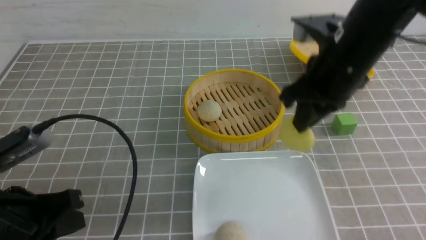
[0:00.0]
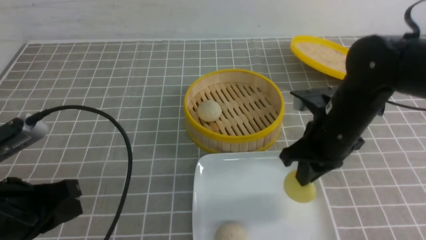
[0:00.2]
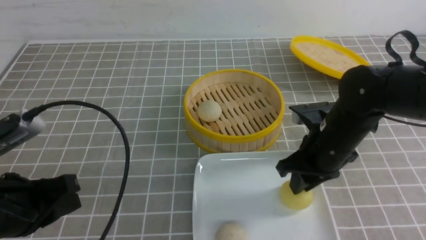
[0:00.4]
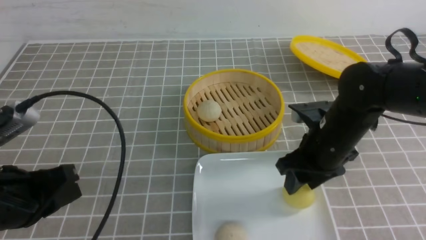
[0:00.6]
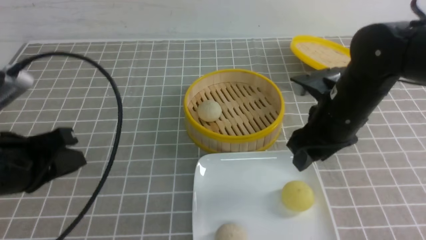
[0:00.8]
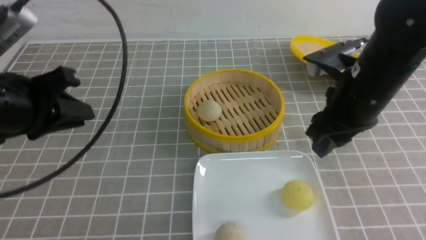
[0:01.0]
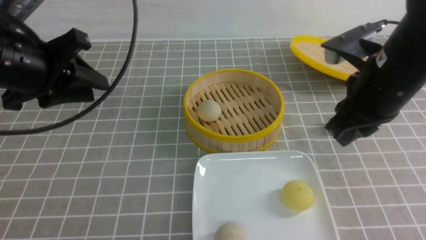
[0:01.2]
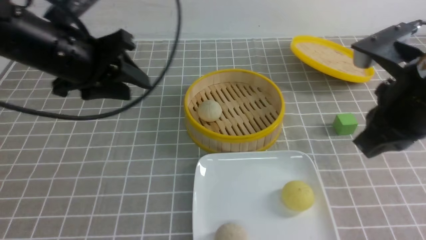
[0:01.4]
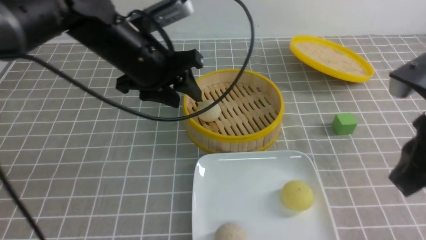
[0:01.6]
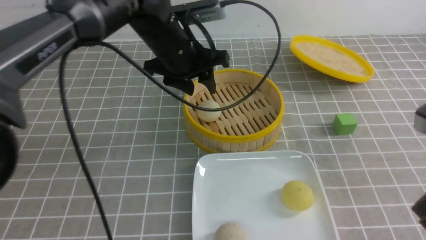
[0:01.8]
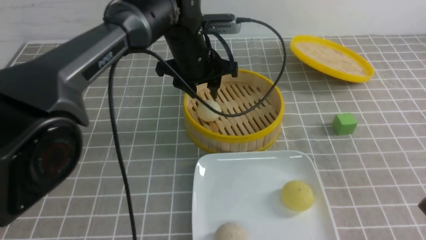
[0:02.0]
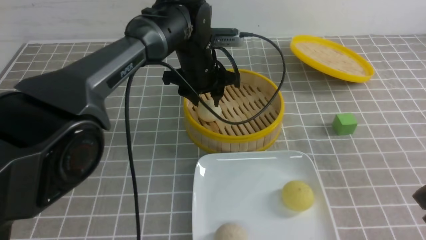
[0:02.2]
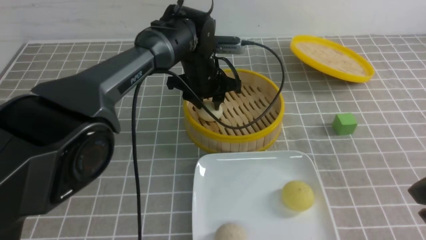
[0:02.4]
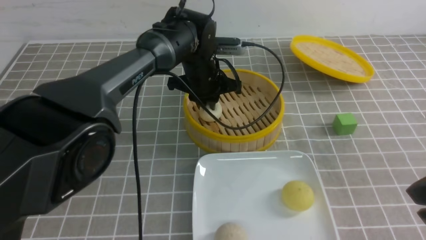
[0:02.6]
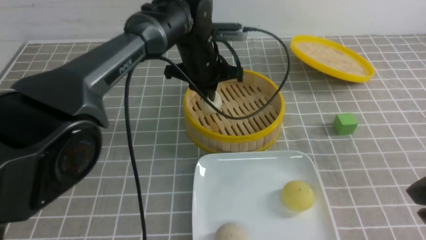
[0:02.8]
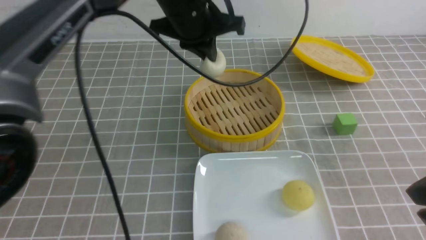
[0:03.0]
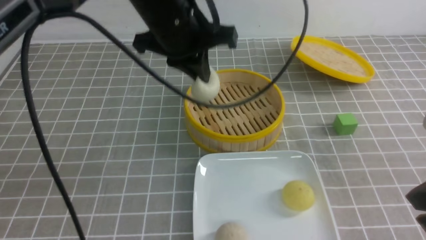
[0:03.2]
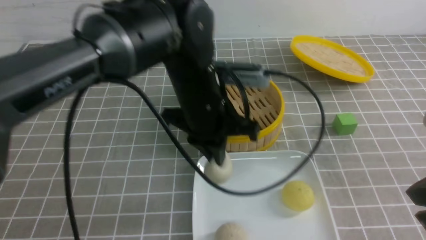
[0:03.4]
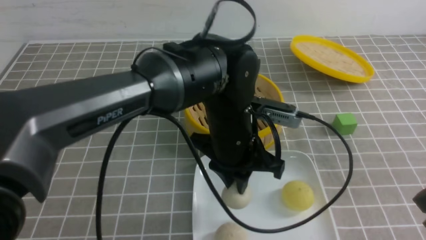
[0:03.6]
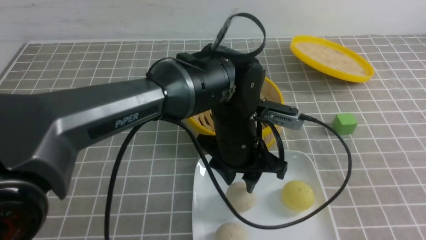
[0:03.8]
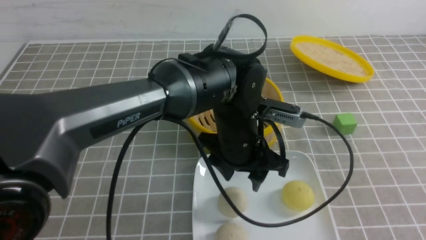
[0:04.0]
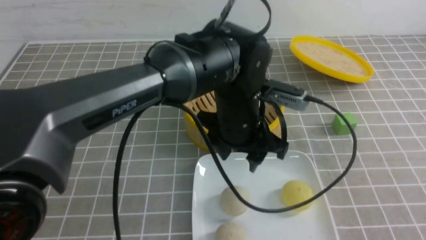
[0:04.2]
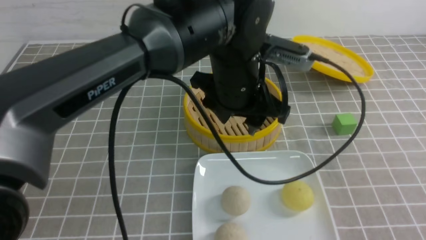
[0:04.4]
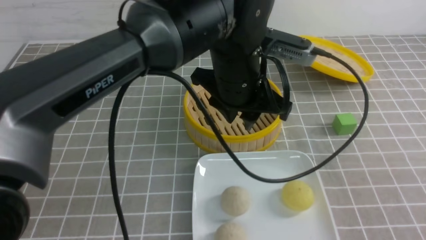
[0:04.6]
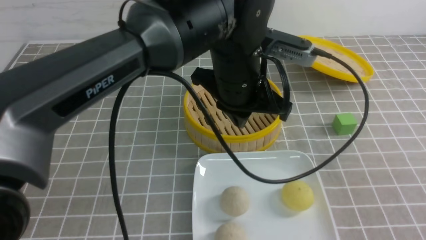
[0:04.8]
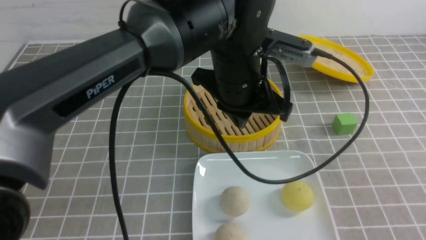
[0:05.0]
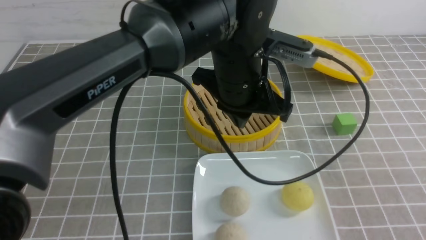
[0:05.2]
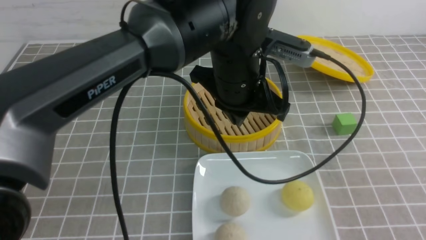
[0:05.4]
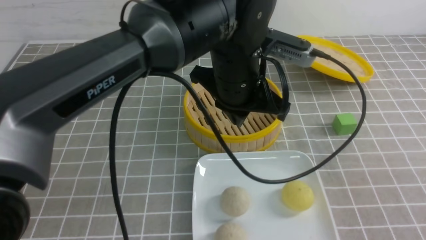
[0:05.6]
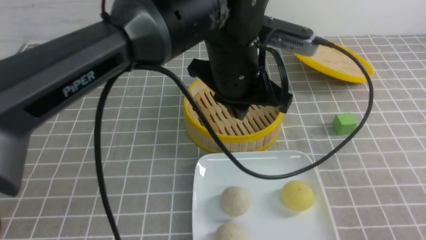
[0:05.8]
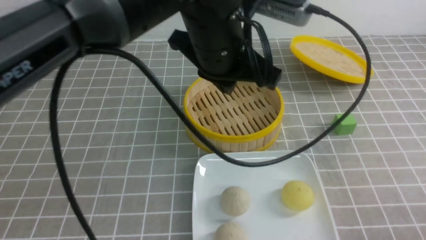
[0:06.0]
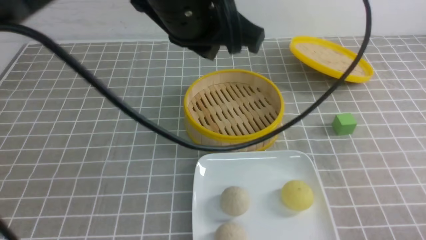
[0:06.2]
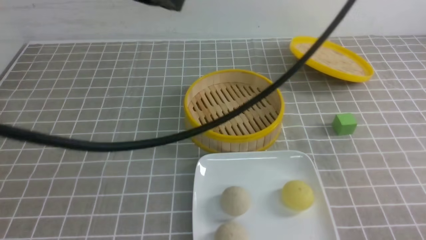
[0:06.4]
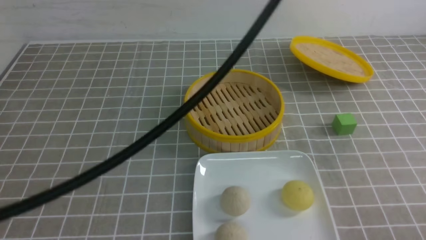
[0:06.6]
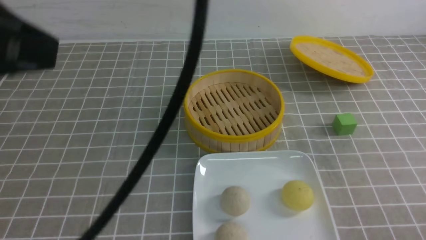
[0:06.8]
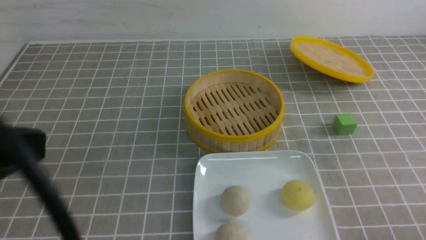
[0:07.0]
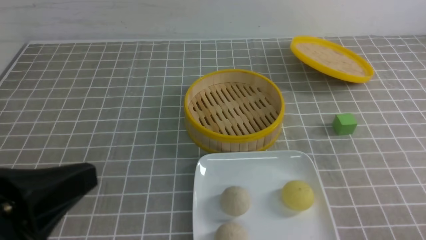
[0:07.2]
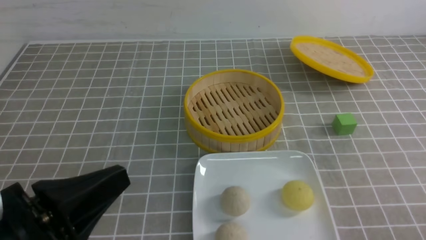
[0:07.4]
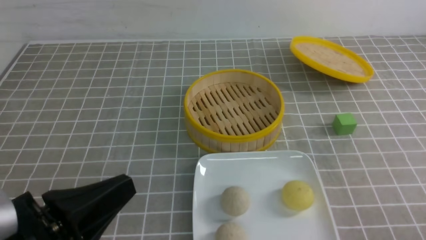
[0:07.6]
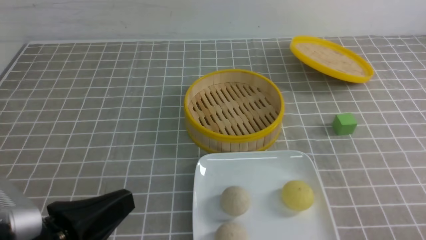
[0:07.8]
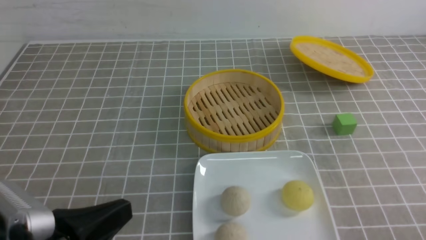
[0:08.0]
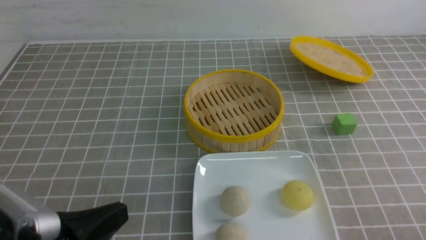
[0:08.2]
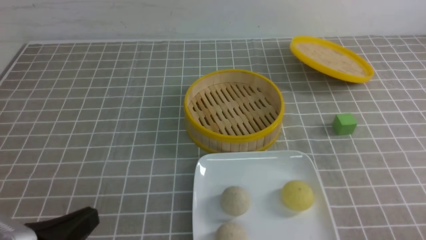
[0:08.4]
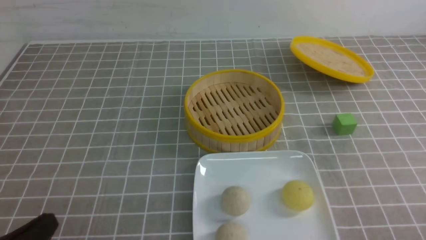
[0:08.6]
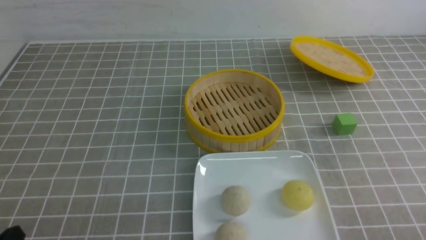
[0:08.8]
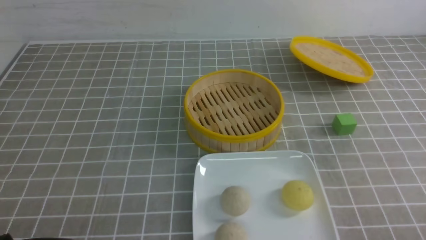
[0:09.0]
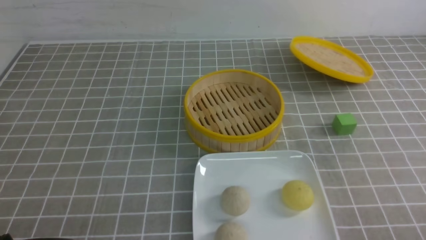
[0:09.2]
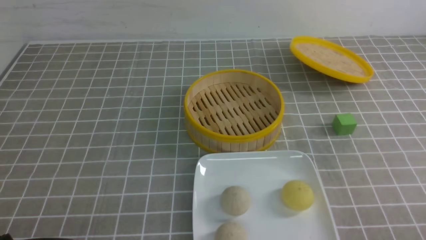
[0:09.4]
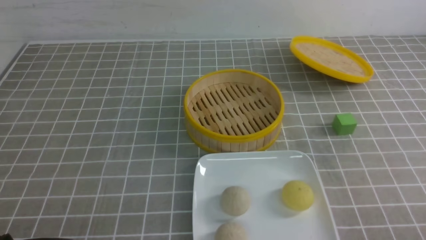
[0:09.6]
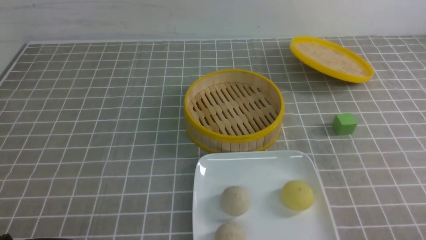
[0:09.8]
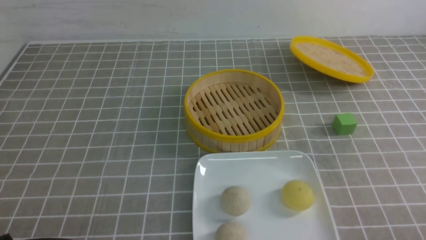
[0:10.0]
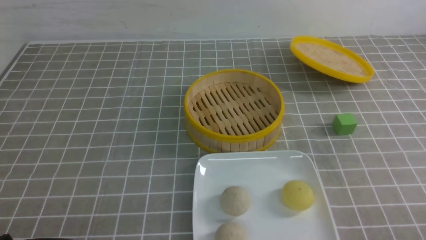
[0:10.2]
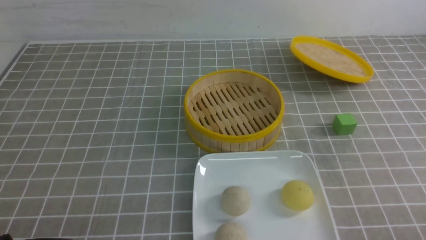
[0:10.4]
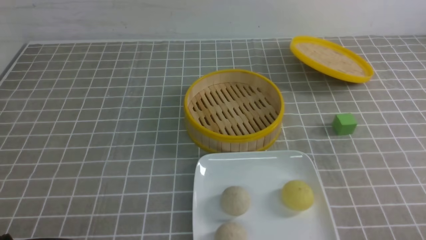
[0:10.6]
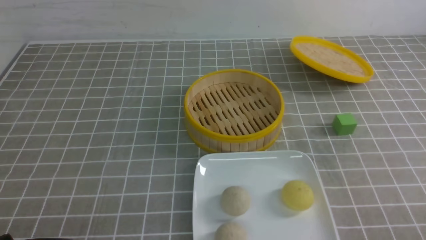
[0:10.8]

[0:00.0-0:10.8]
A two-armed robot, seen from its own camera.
Step, 0:00.6 to 0:02.6: use the left arm to grab the steamed stuffed bun that is closest to it.
Step, 0:02.8 to 0:03.8: use the left arm to put the steamed stuffed bun into the plate.
0:00.0 to 0:01.6: The left gripper is displaced forward and to the right by about 25 cm, and opens its fingers. The right gripper heads backward and to the right, covering roughly 15 cm, and opens and closes again.
0:01.6 to 0:03.0: The left gripper heads to the right, covering some 5 cm, reaches approximately 10 cm downward, then returns, and closes its fingers.
0:03.0 to 0:04.6: Both grippers travel together backward and to the right, roughly 10 cm. The left gripper travels downward and back again, some 10 cm each way, and opens up.
0:04.6 to 0:06.2: The left gripper travels upward, to the left and backward by about 15 cm, and closes its fingers. Meanwhile the right gripper travels downward by roughly 10 cm.
0:06.2 to 0:07.8: The left gripper goes roughly 30 cm downward, backward and to the left.
0:07.8 to 0:09.2: The left gripper moves downward and to the left, roughly 15 cm.
0:09.2 to 0:10.8: Both grippers stay about where they are.

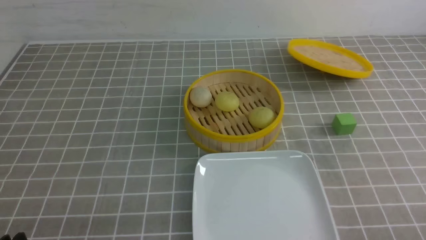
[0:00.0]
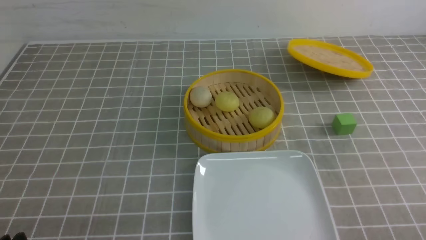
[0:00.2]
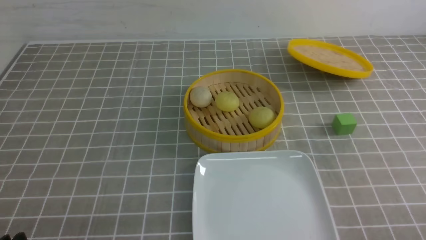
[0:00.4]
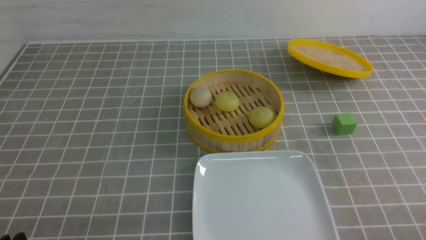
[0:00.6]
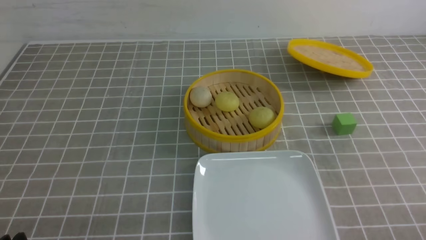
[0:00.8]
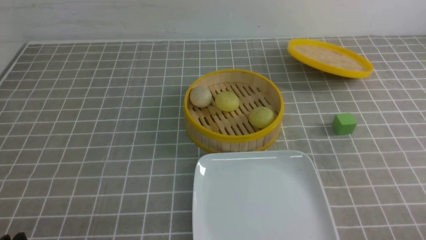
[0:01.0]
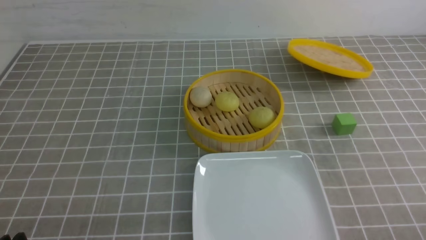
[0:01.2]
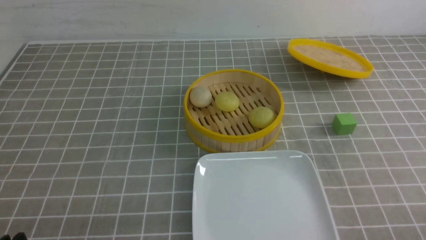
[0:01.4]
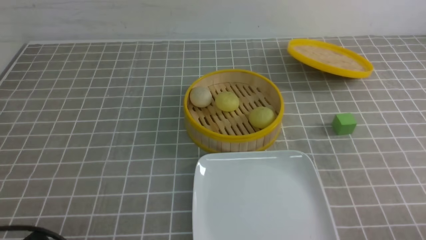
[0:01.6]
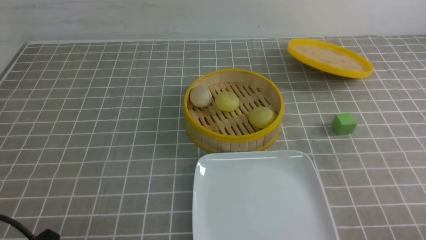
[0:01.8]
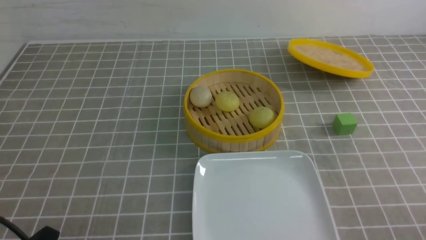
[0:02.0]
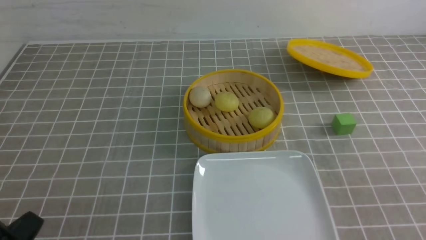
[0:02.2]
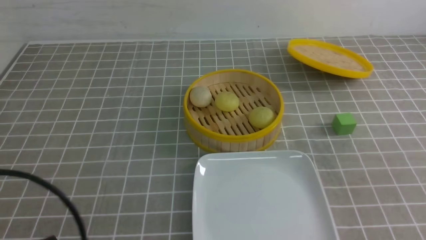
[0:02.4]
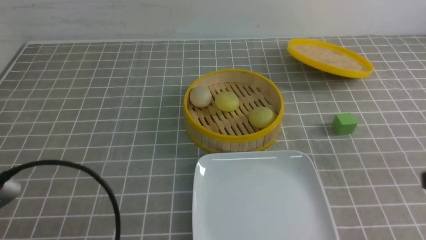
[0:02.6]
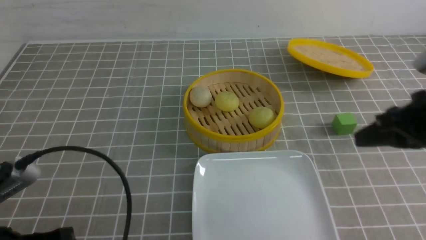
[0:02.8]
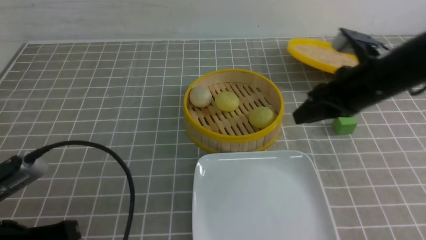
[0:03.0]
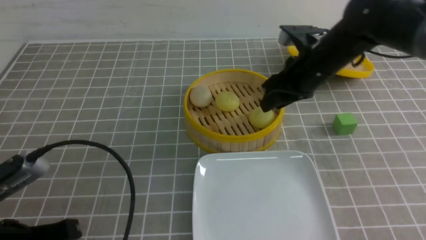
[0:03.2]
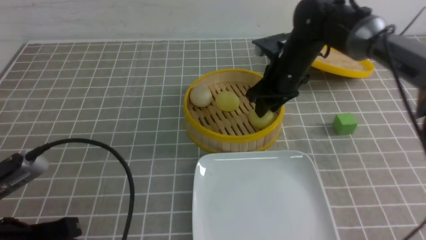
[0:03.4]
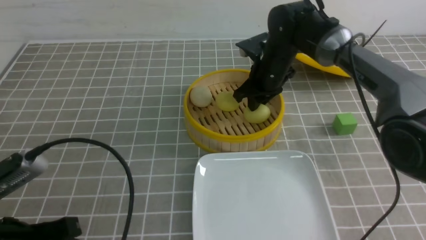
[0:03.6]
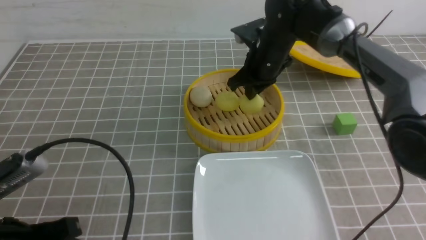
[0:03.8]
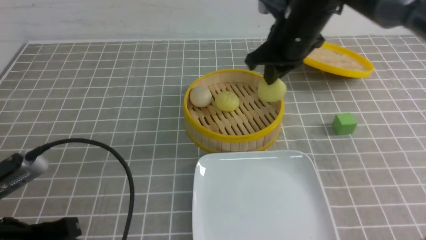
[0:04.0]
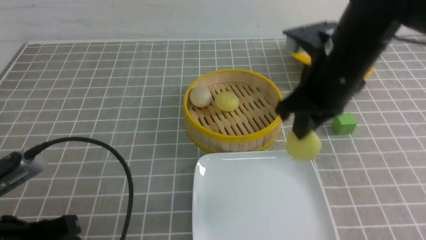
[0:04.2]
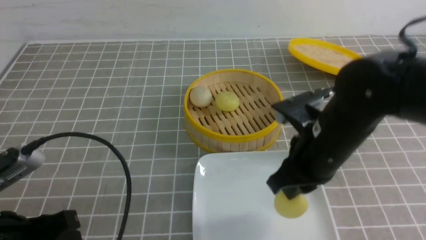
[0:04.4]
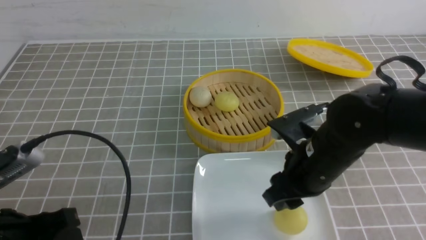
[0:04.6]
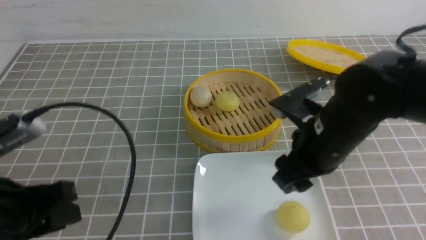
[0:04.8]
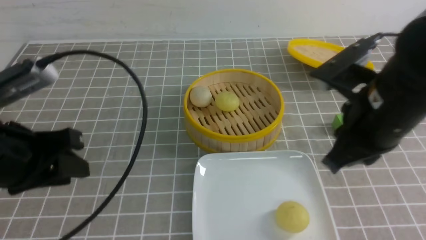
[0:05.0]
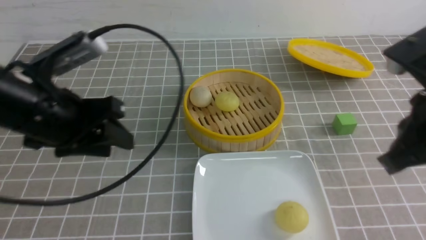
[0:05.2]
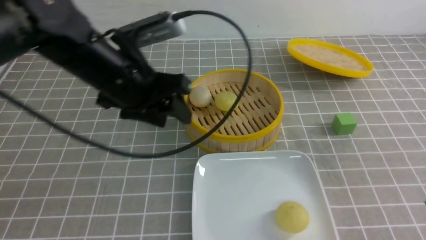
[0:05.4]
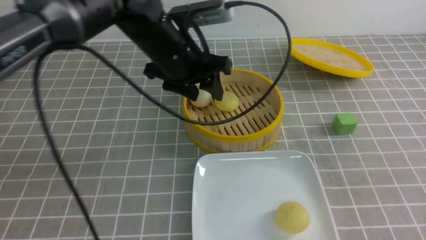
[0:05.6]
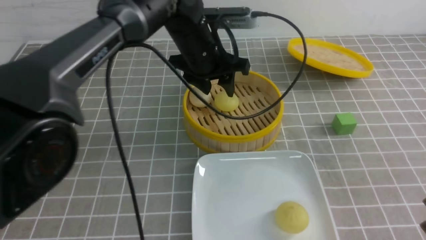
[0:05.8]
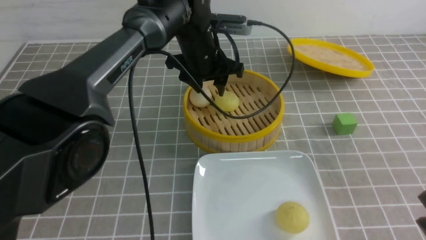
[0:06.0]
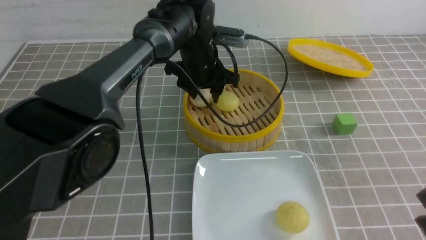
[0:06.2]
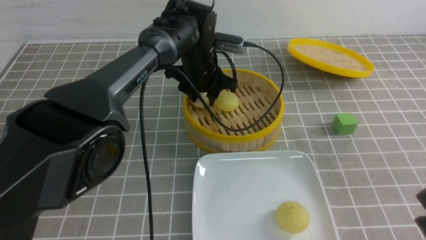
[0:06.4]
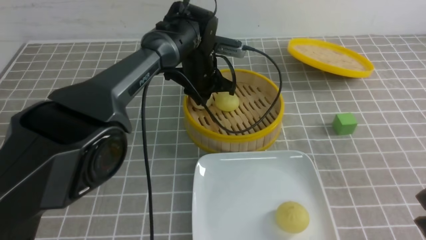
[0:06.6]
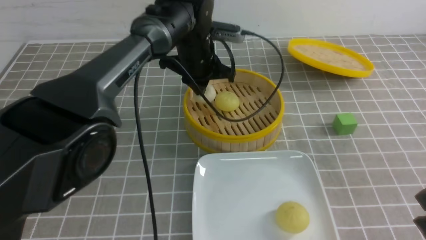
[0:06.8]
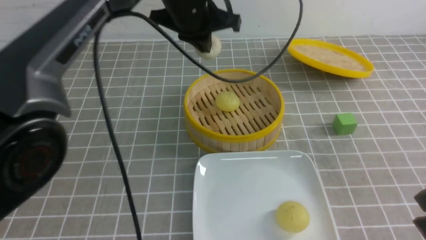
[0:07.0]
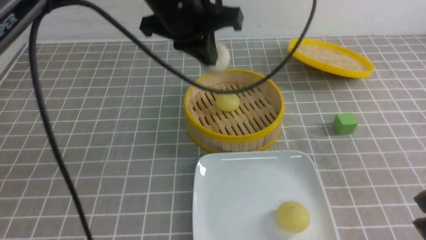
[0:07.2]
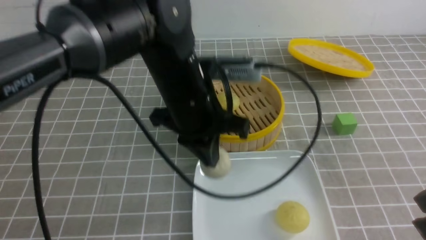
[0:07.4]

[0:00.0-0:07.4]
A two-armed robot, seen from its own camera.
Step, 0:00.0 to 0:03.6: use the right arm to grab the steamed stuffed bun that is closest to it.
Step, 0:03.8 to 0:04.6: use the right arm to put the steamed stuffed bun into the plate.
Step, 0:04.8 to 0:06.6: use the left arm to grab the steamed stuffed bun that is closest to it.
0:01.4 to 0:03.0: The right gripper moves forward and upward, about 30 cm, and closes, then reopens; the left gripper is displaced upward and forward by approximately 10 cm.
0:03.0 to 0:04.4: The right gripper goes roughly 10 cm to the left and backward, and closes and opens again.
0:04.4 to 0:06.0: The right gripper travels backward, to the right and upward by approximately 20 cm, and closes, while the left gripper is displaced forward and to the right by roughly 40 cm, and opens.
0:06.0 to 0:07.4: The left gripper is displaced backward by approximately 15 cm, and closes.
